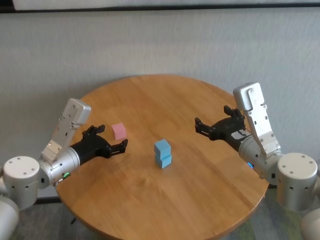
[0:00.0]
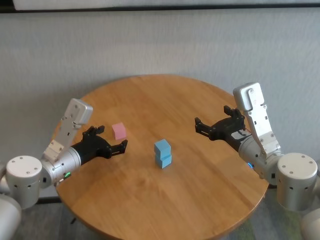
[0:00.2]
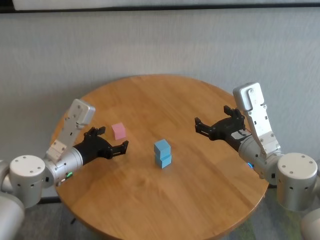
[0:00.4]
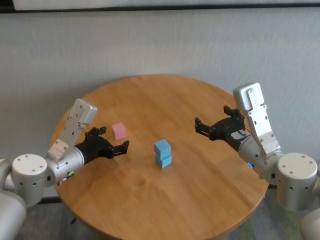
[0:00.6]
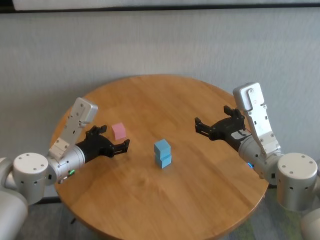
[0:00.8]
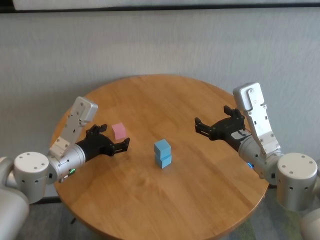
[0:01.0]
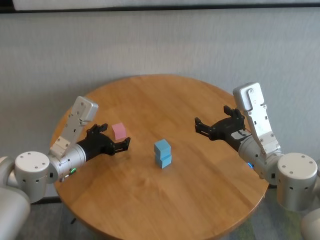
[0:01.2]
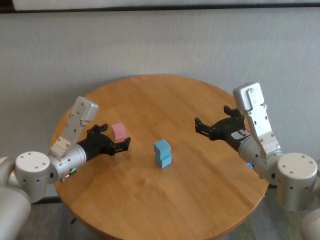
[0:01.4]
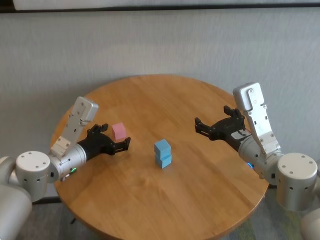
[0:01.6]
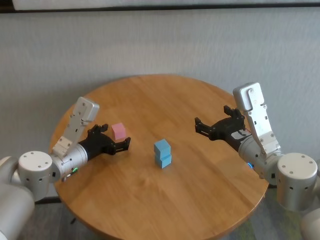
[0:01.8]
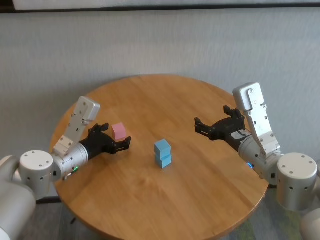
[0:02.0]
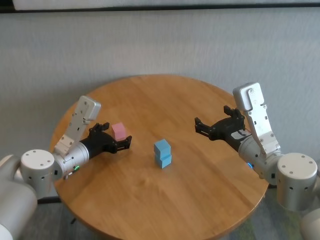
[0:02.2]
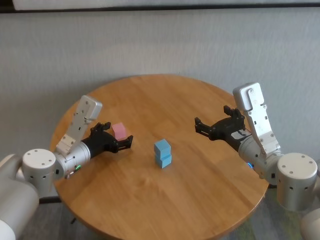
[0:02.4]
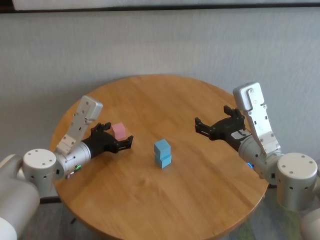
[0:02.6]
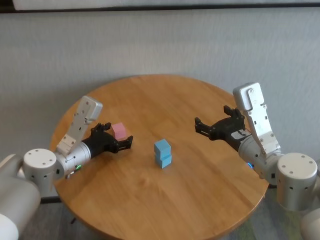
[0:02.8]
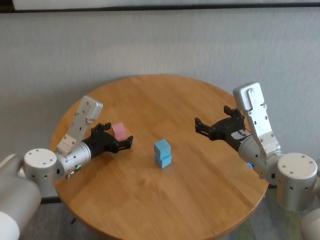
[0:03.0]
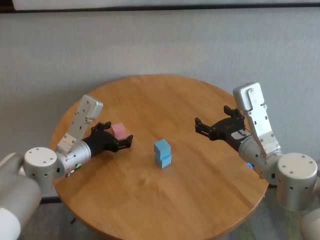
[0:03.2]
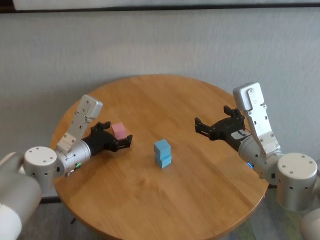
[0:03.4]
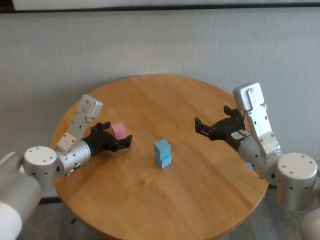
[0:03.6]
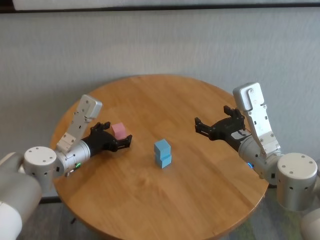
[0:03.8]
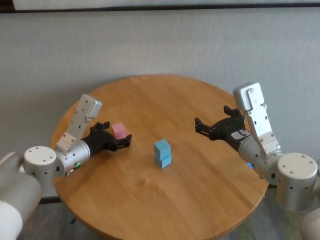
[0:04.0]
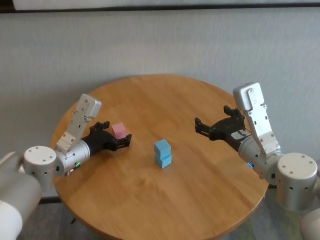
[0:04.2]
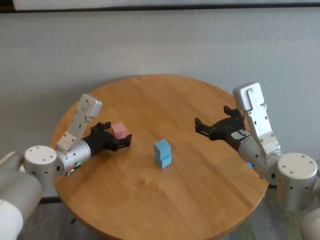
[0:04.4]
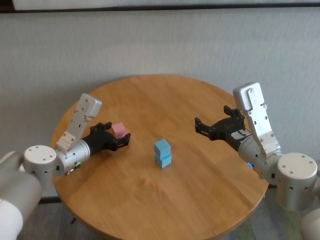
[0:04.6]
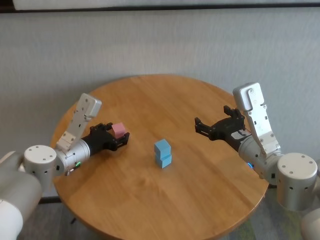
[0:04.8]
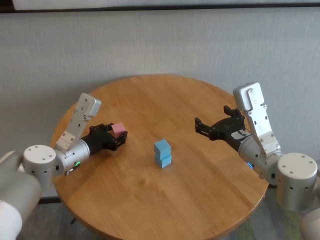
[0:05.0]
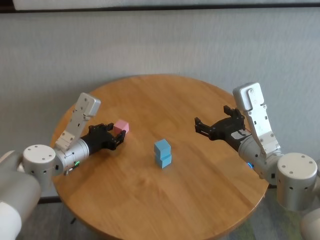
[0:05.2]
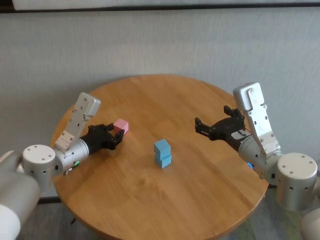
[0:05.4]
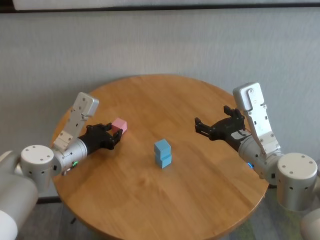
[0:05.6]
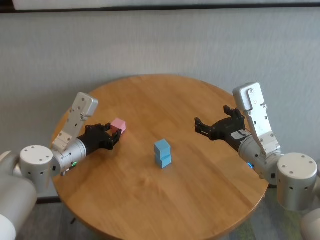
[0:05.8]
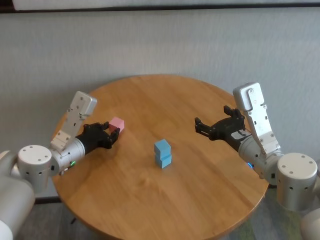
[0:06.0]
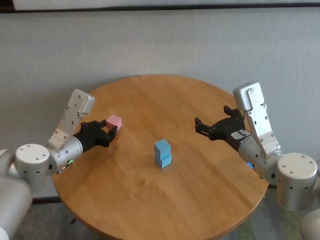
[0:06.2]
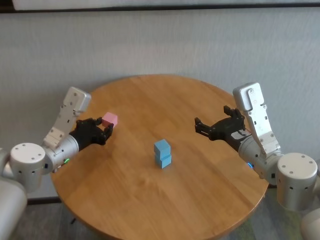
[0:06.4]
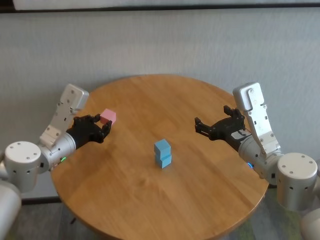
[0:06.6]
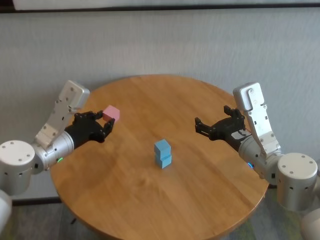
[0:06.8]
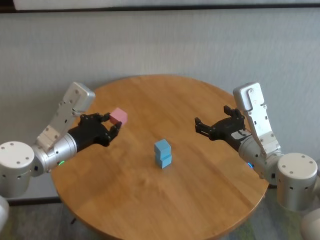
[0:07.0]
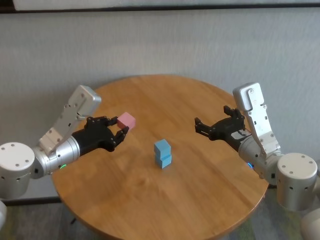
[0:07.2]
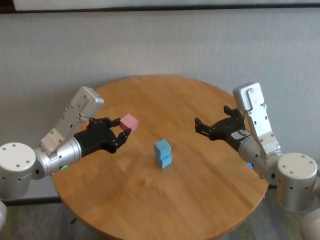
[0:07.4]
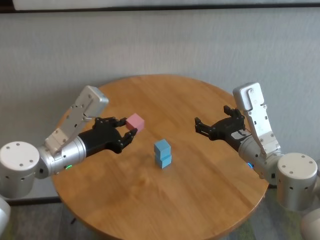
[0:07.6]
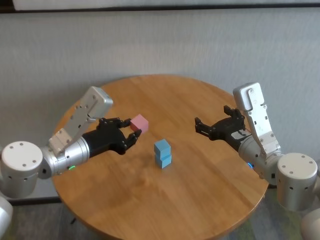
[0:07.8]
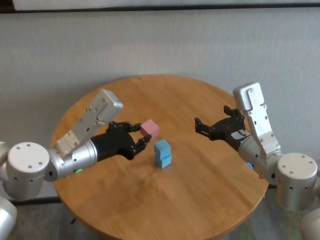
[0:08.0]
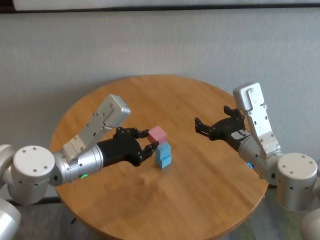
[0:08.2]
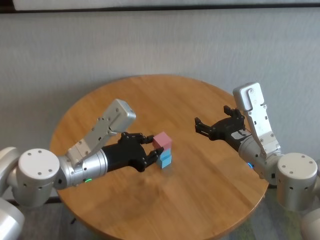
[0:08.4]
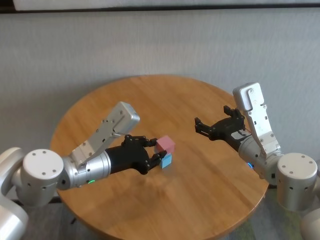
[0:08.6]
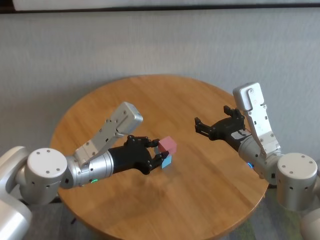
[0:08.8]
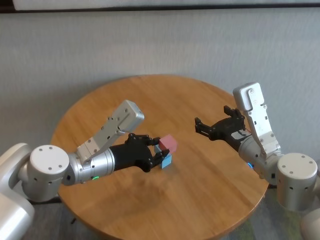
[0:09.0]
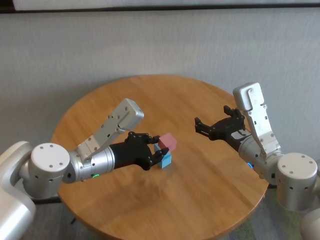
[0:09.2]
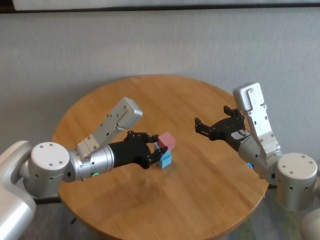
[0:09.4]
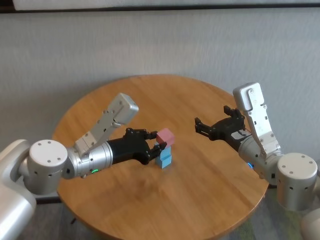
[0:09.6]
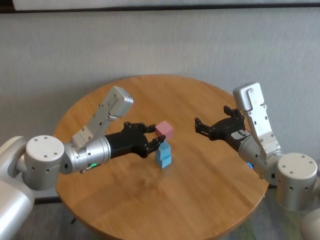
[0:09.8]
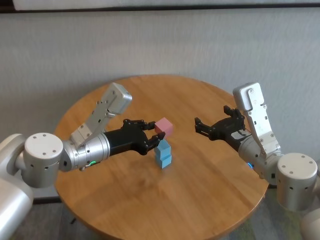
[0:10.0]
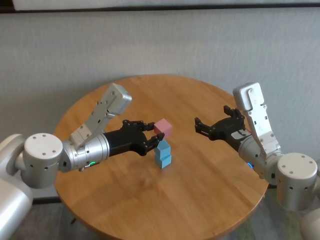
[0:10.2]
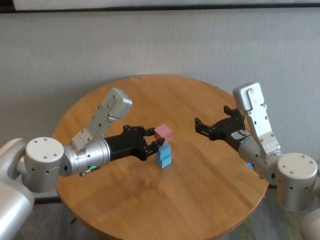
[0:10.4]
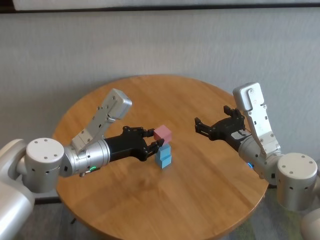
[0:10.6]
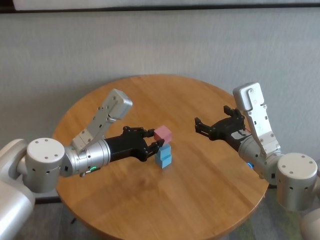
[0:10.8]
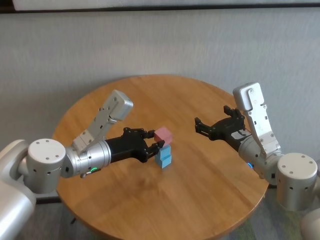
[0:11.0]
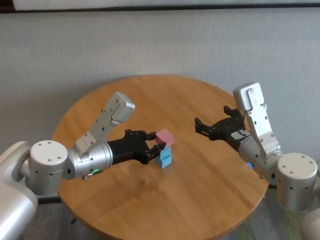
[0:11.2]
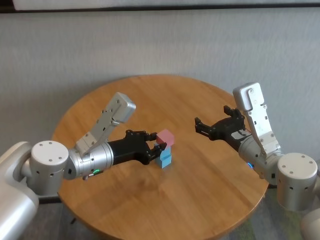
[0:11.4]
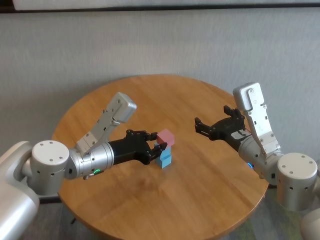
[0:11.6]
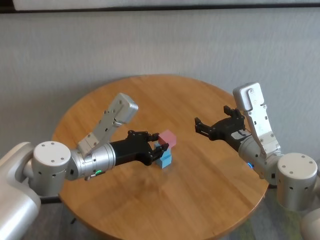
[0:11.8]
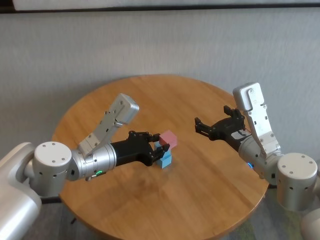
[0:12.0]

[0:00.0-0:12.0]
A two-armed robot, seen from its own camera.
Task of the whole recording: stack building blocks on the table.
Step, 0:00.0 to 0:05.4: Grasp the pink building block with left gripper.

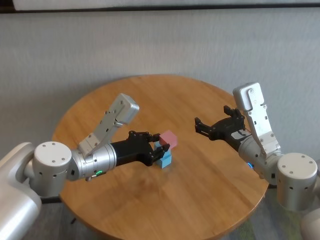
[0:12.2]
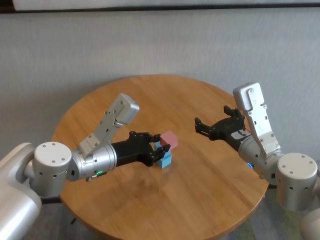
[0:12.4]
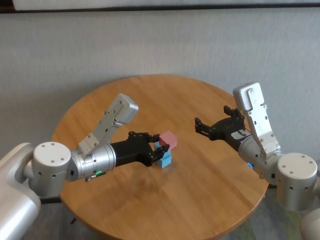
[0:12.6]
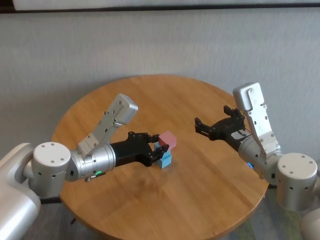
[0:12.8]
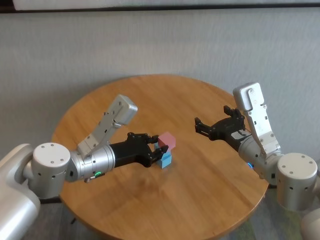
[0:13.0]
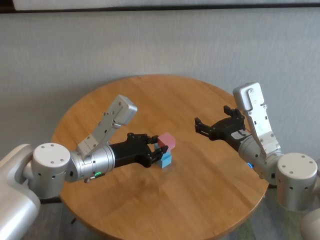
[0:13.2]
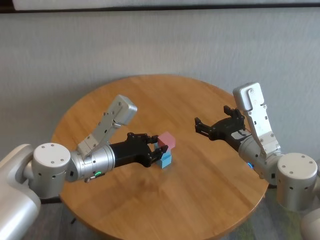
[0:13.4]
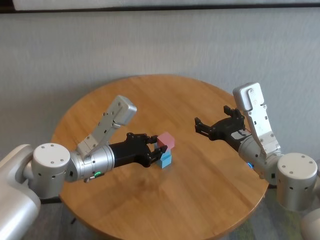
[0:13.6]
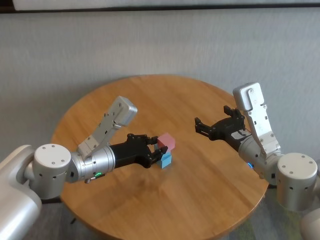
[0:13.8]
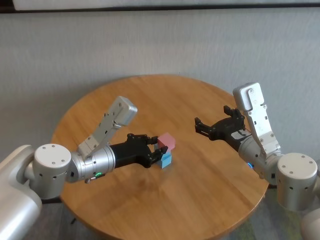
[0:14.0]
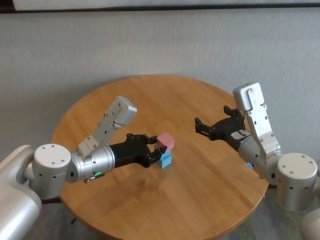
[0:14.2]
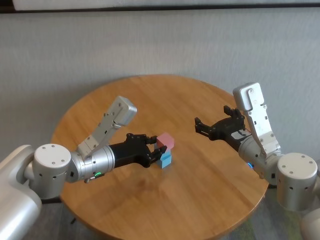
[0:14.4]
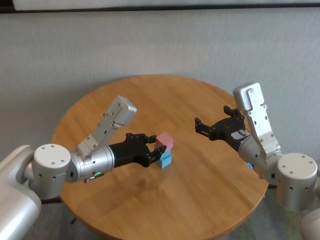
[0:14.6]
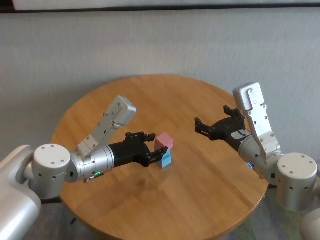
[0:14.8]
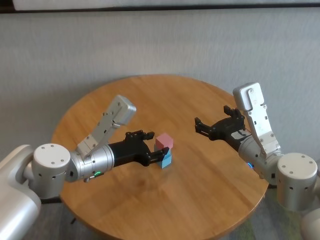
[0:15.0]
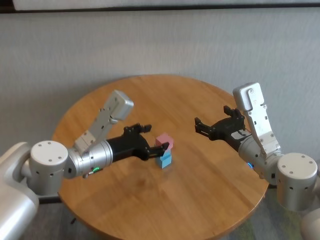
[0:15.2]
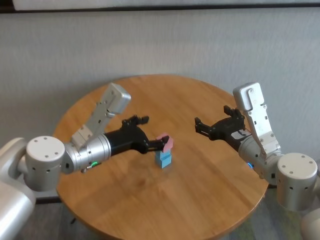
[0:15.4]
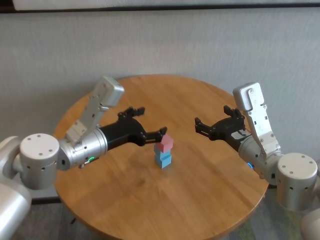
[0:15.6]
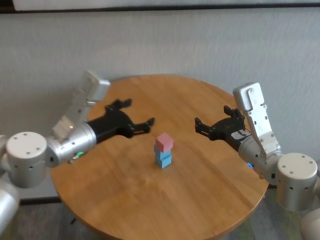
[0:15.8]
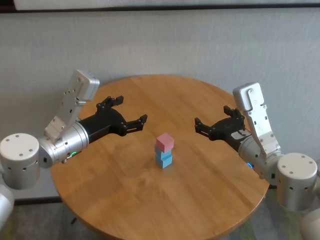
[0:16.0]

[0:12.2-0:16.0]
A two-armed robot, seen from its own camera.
Task of the whole recording: stack building blocks on the table.
Step, 0:12.2 to 0:15.0: Place the pink building block on the blue building blocks with left gripper.
